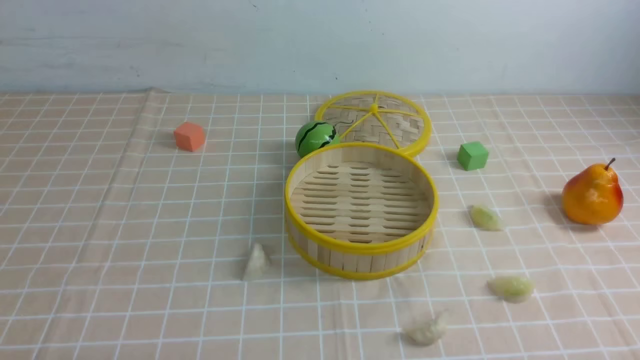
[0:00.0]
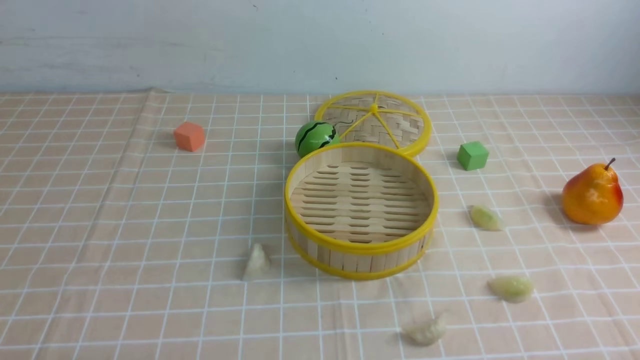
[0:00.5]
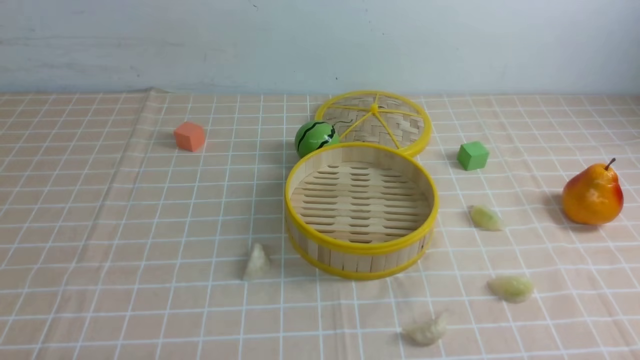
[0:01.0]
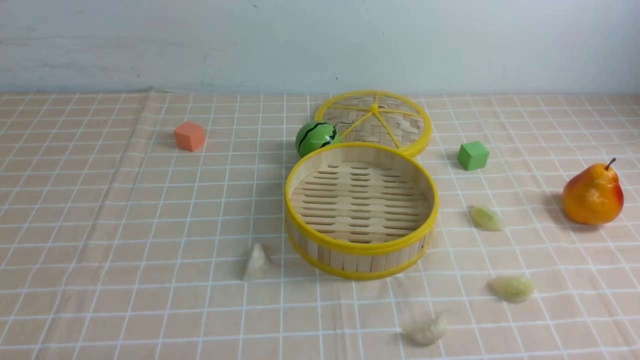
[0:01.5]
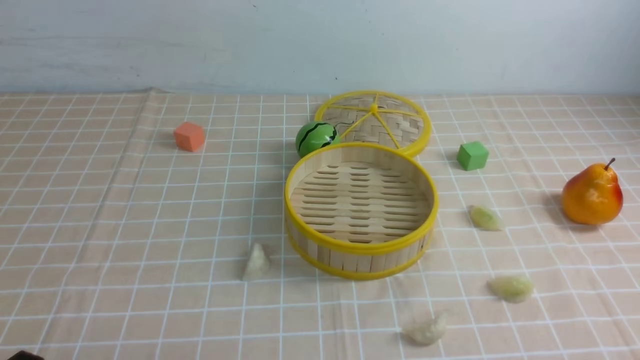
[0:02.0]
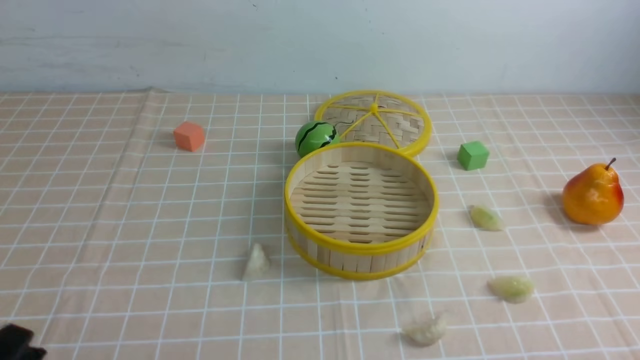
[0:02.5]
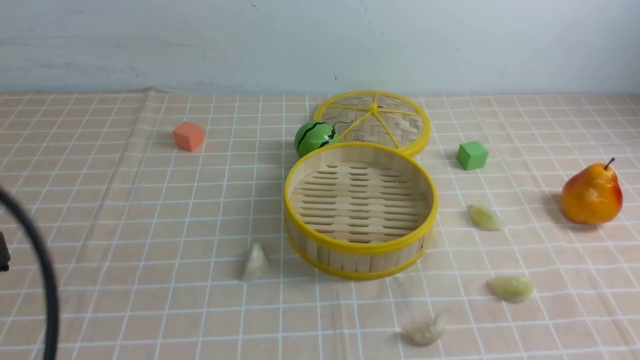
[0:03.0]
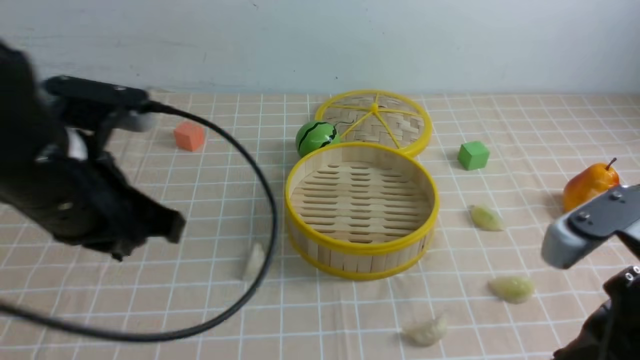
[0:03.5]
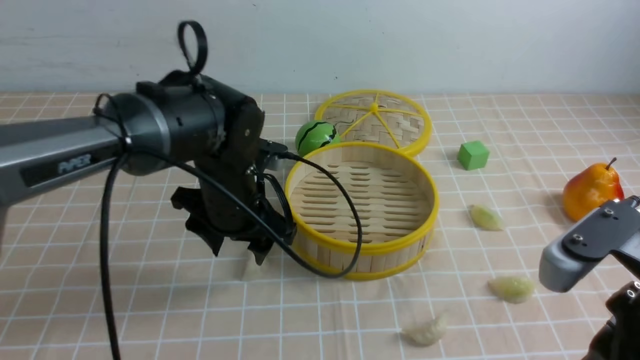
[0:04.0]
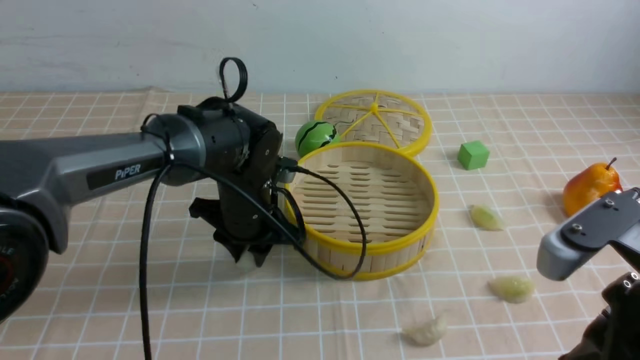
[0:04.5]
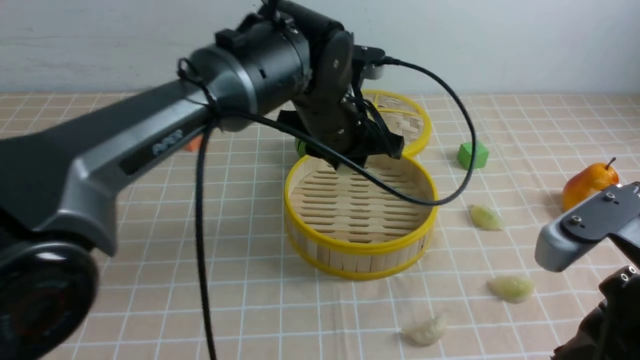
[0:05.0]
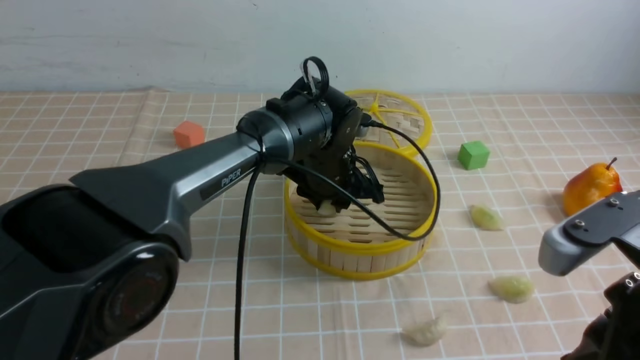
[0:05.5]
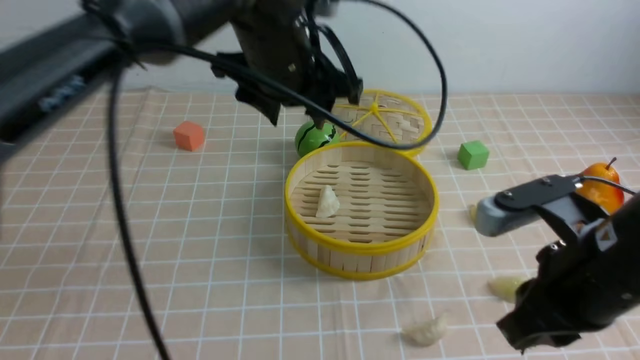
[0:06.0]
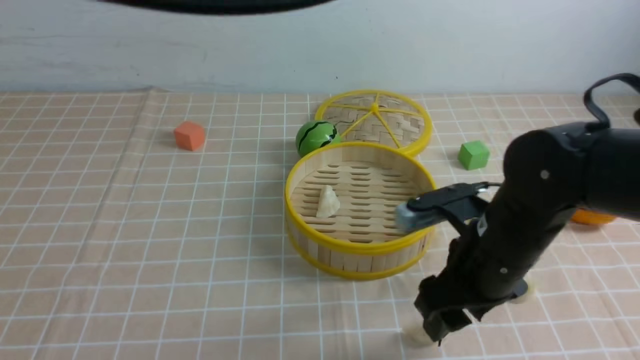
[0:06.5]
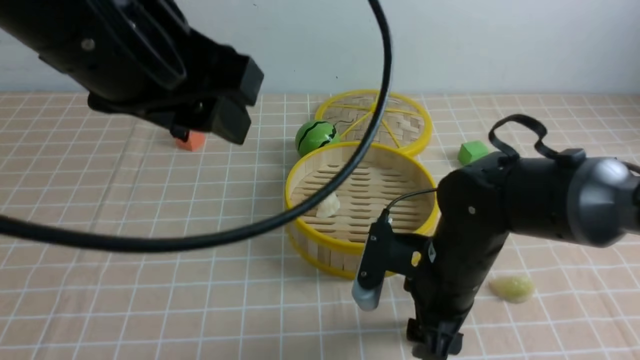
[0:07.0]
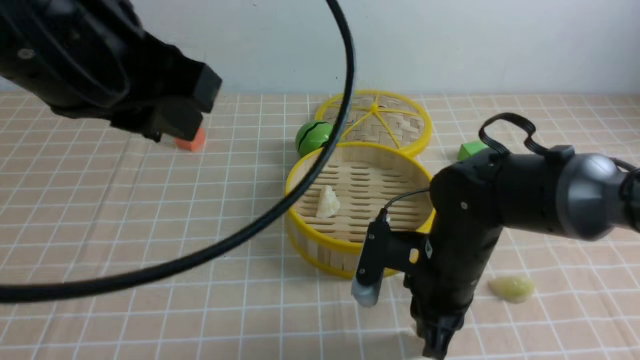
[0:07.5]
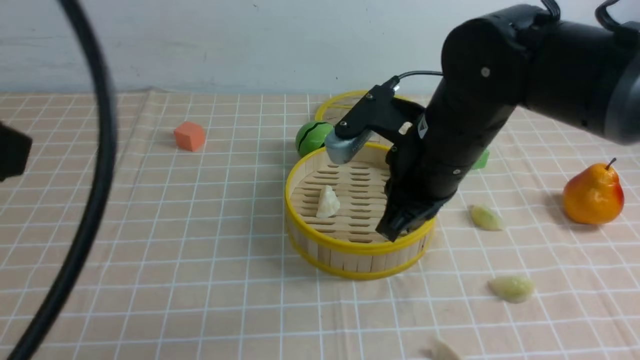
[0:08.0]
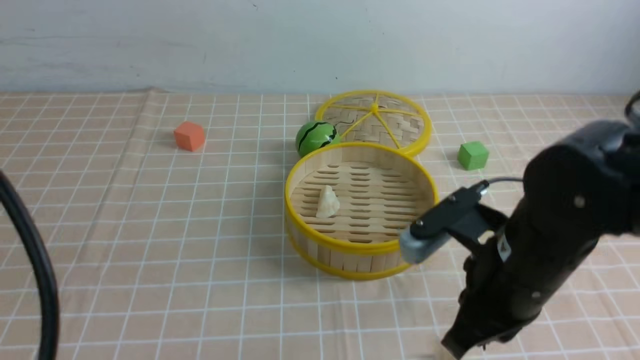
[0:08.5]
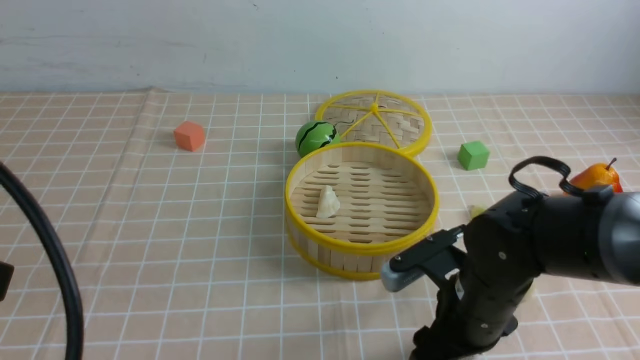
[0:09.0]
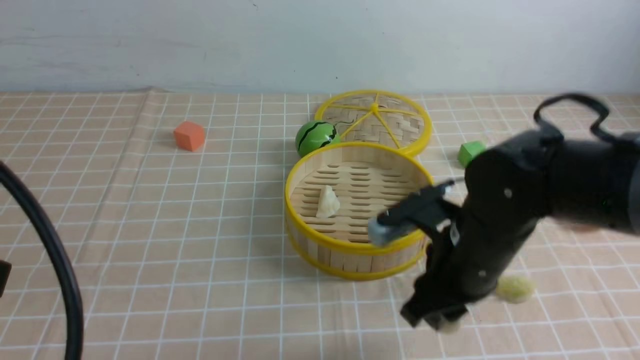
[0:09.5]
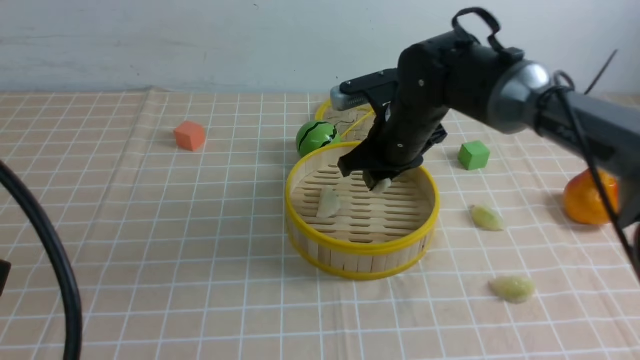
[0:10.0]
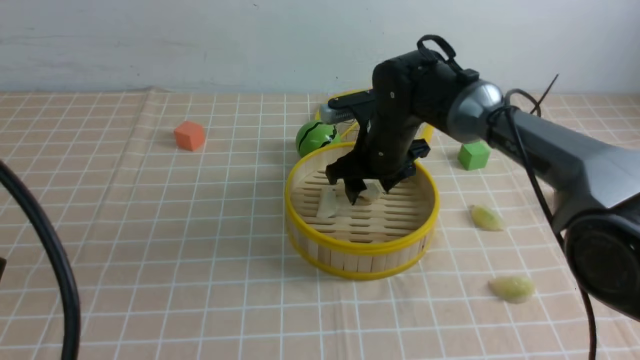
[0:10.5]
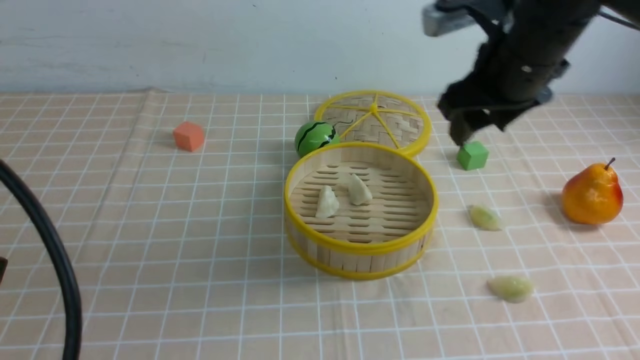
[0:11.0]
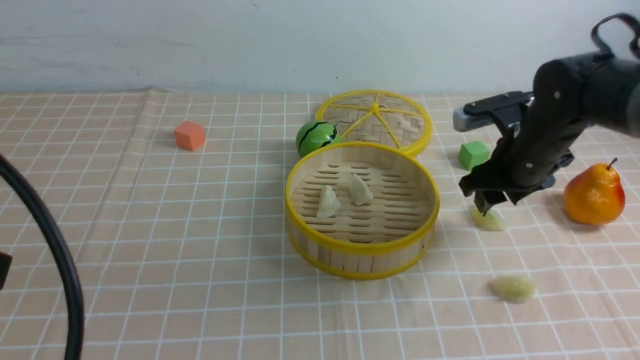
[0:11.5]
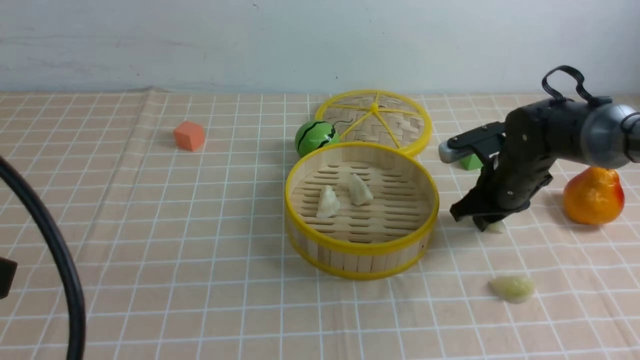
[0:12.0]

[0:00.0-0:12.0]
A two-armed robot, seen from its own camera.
Task of the whole recording: put the dumplings into the steamer on the table with the brown tablecloth.
Step, 0:00.0 to 0:04.0: use the left arm to grab a dumpling.
Step, 0:04.5 to 0:05.5: use the left arm to put the dumpling into the steamer.
Step, 0:06.0 to 0:09.0: use the right arm to grab a dumpling.
Step, 0:09.5 to 0:10.5: use the right arm to put the dumpling into the steamer.
Step, 0:11.0 to 0:12.0: use the right arm to grab a dumpling.
0:02.0 to 0:04.0: The left gripper goes about 35 cm forward and to the right, and opens its fingers. The right gripper moves upward, forward and to the left, about 20 cm, and closes its fingers.
0:04.0 to 0:06.0: The left gripper swings up and down, roughly 20 cm each way, with 2 reversals, and closes, then opens again, while the right gripper moves forward, some 5 cm.
0:06.0 to 0:08.0: The right gripper goes some 15 cm forward and to the left, goes downward and returns, some 10 cm each way, and opens and closes again. Meanwhile the left gripper goes approximately 30 cm backward and to the left, and closes its fingers.
0:08.0 to 0:10.0: The left gripper heads downward, covering roughly 5 cm, while the right gripper heads forward and downward, covering some 15 cm, and opens its fingers.
0:10.0 to 0:12.0: The right gripper moves to the right and downward, some 15 cm, and opens and closes again.

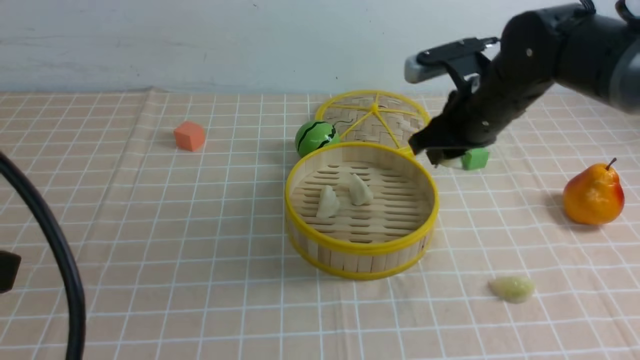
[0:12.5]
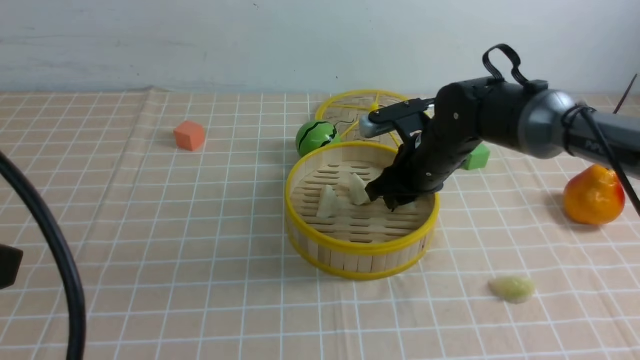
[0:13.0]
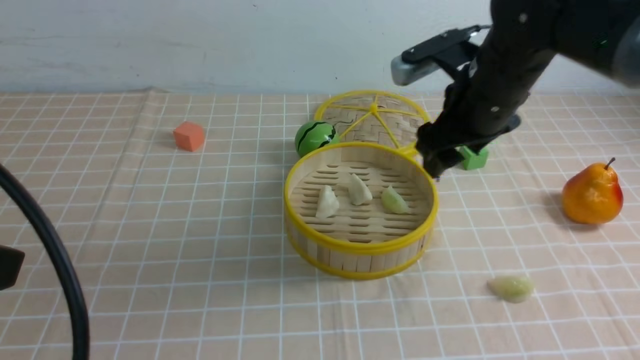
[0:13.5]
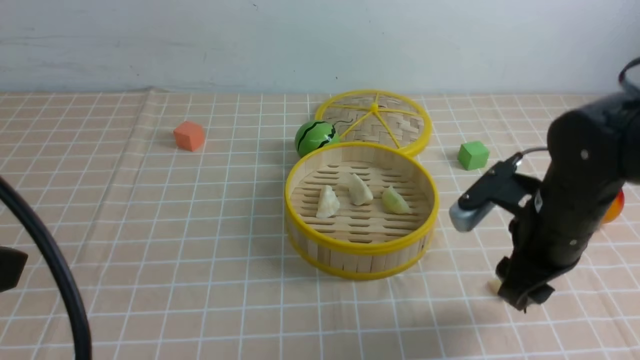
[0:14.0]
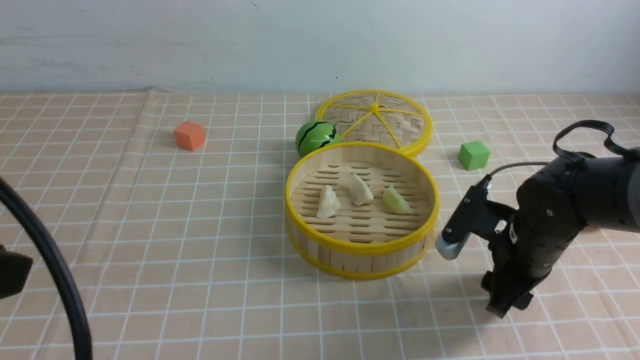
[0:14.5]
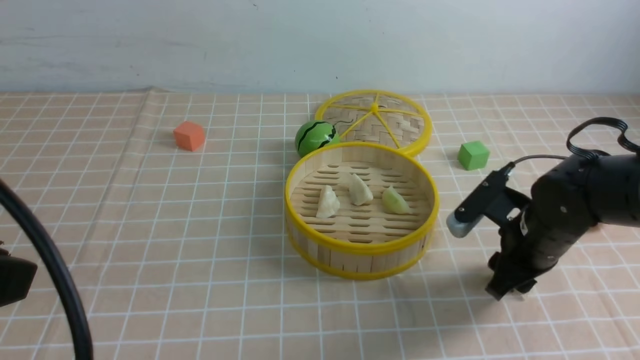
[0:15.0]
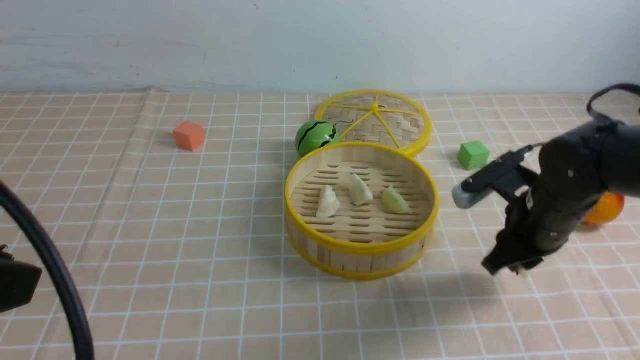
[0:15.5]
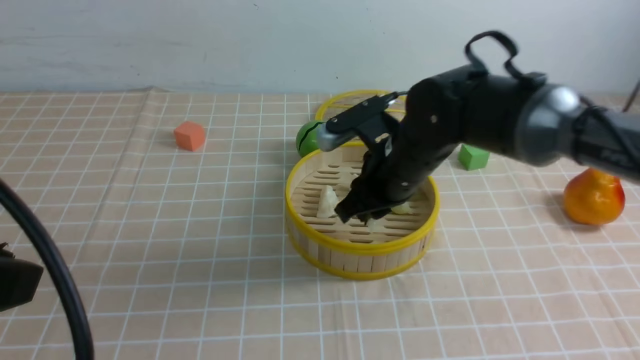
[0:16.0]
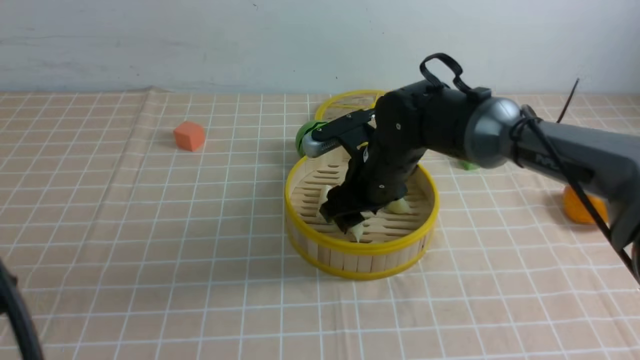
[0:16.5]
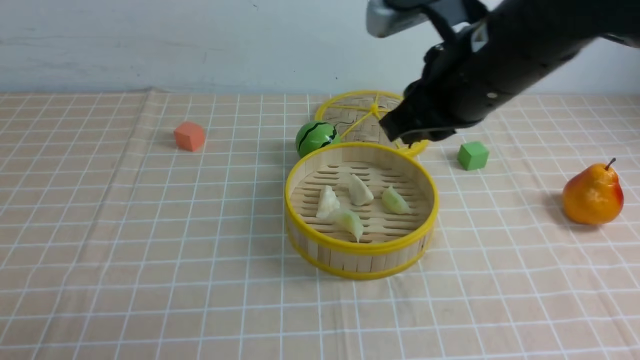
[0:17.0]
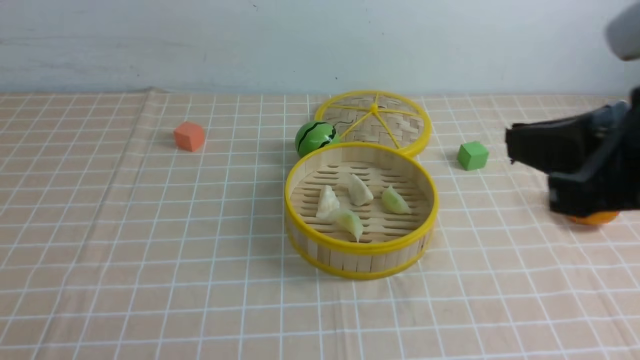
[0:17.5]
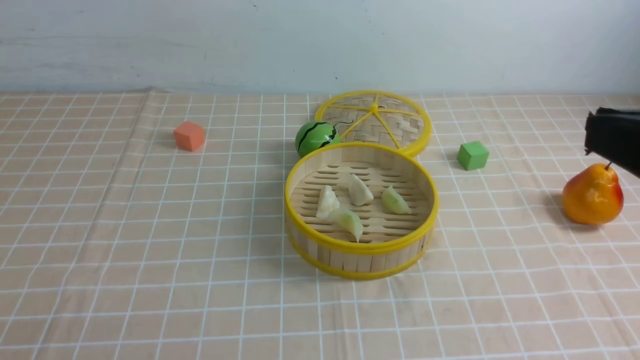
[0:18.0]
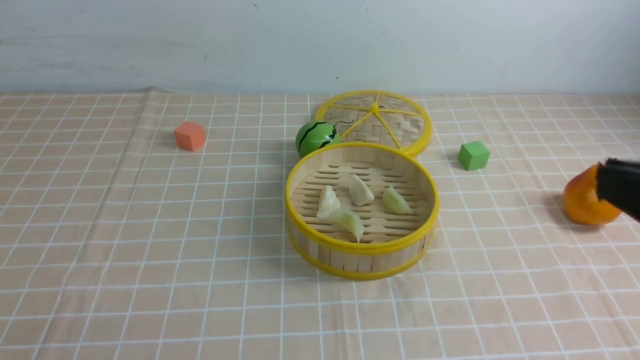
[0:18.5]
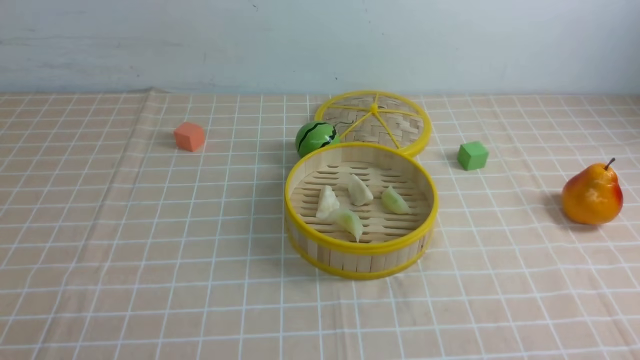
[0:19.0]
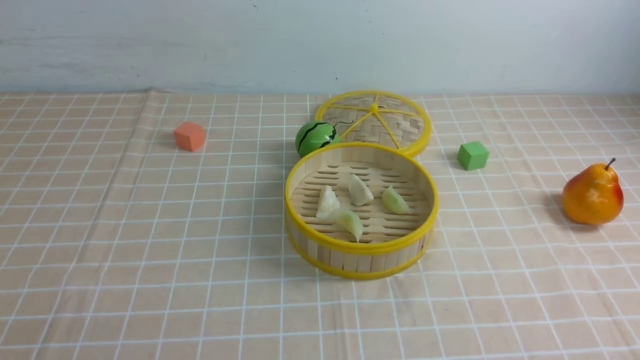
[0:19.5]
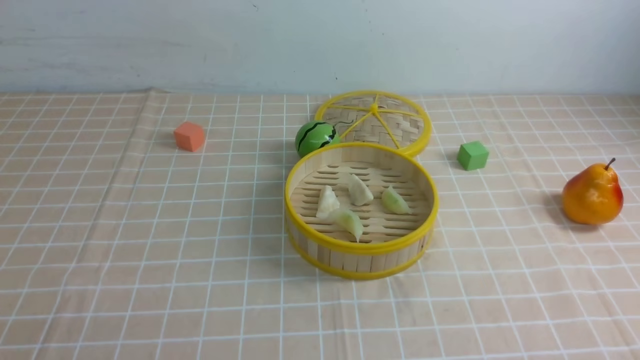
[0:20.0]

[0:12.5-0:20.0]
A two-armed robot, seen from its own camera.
Task of the whole recording: put the dumplings into the steamer on the table with the brown tablecloth.
Step, 0:13.5 to 0:15.0: use the right arm to grab a dumpling.
Step, 0:15.5 to 0:16.5: use the right arm to put the dumpling into the steamer.
0:12.5 to 0:14.5: The right gripper goes up and down, approximately 15 cm each way, reversing 2 times, and opens.
0:14.5 to 0:16.5: The right gripper heads to the left, forward and upward, covering about 15 cm, and closes, then reopens.
0:16.5 to 0:18.0: The left gripper is displaced downward by some 10 cm, and closes up. The right gripper travels backward, upward and to the right by some 35 cm, and closes its fingers.
0:18.0 to 0:20.0: The right gripper is displaced downward by approximately 25 cm.
